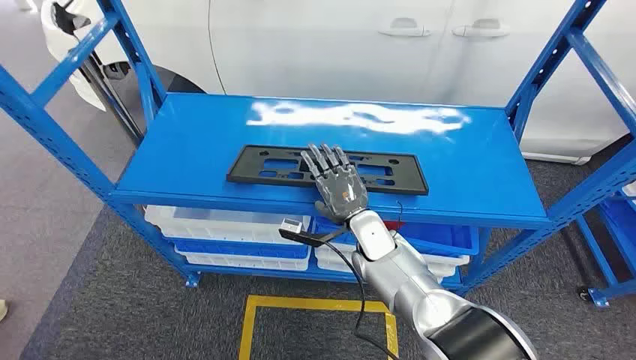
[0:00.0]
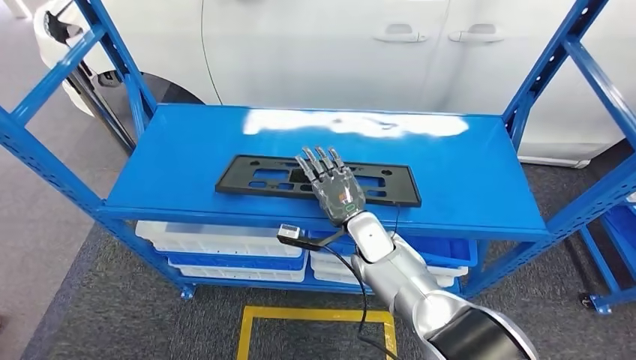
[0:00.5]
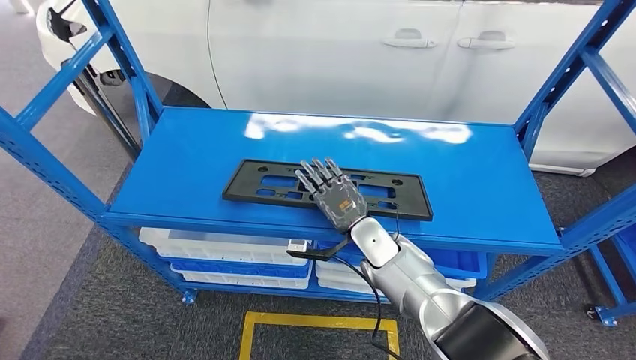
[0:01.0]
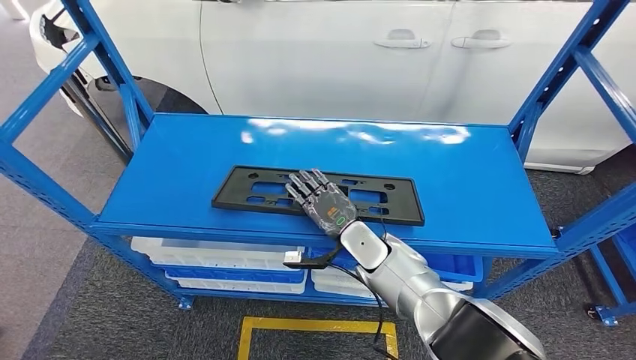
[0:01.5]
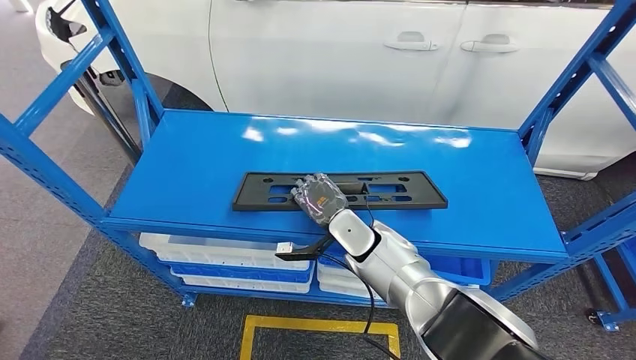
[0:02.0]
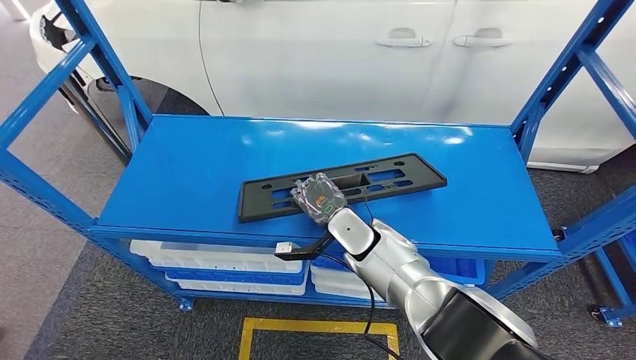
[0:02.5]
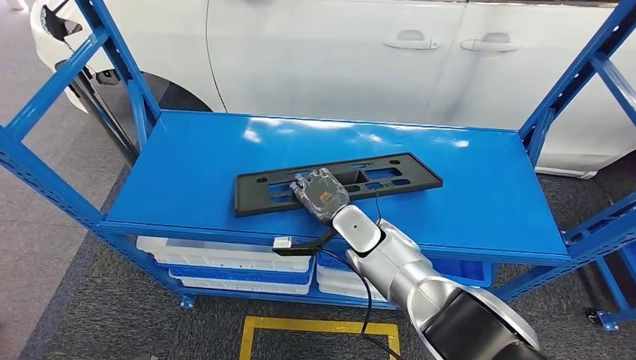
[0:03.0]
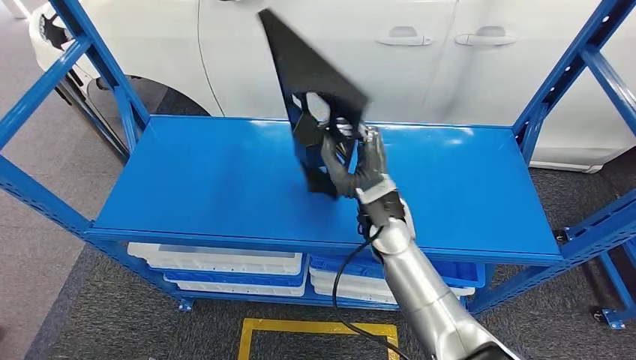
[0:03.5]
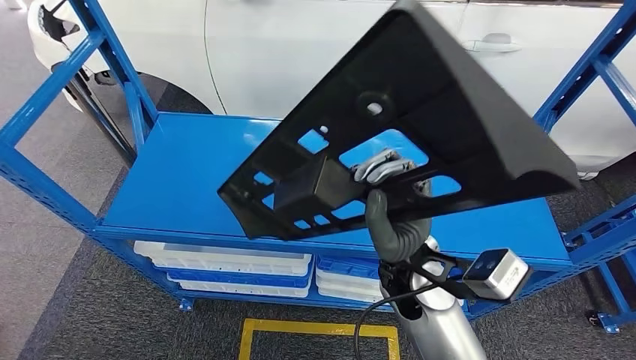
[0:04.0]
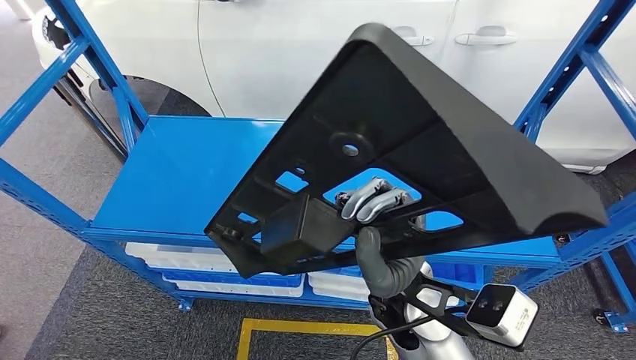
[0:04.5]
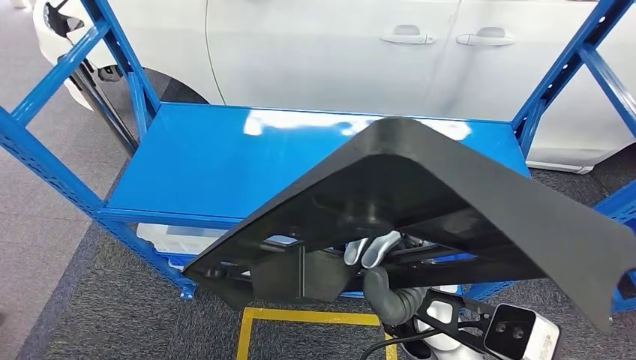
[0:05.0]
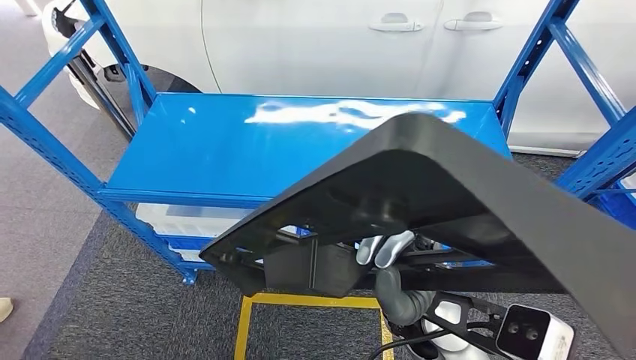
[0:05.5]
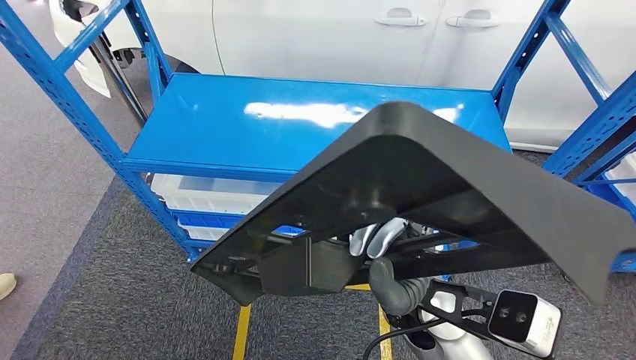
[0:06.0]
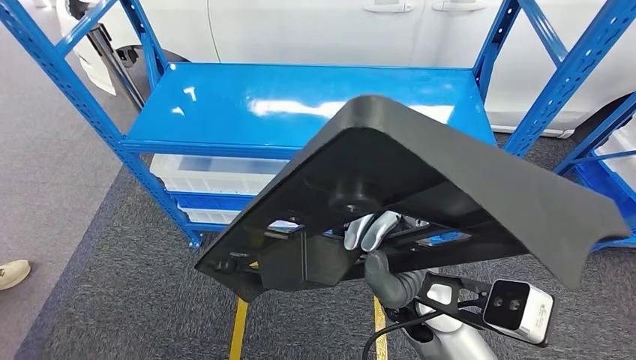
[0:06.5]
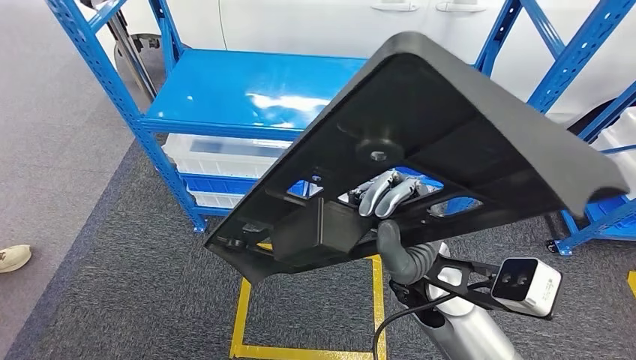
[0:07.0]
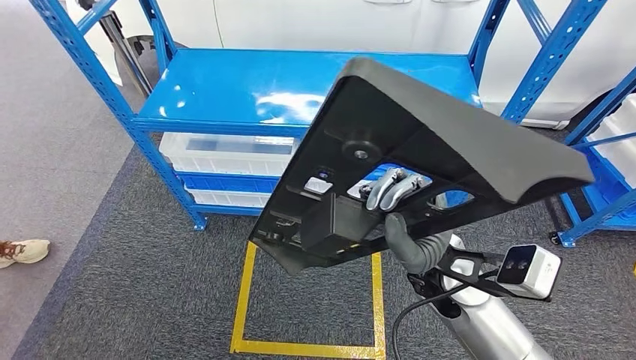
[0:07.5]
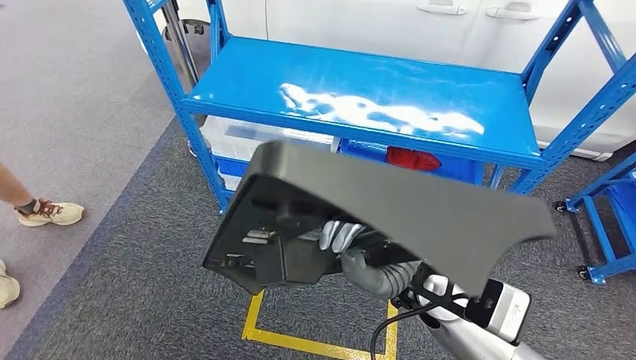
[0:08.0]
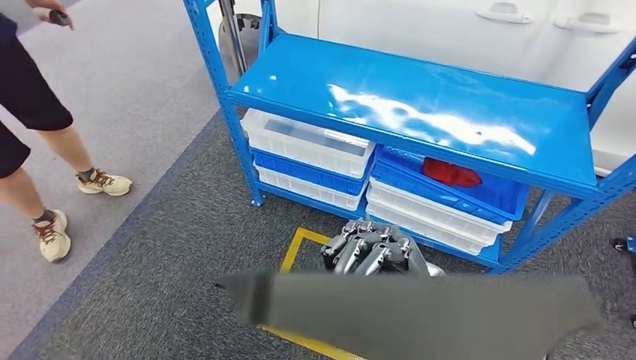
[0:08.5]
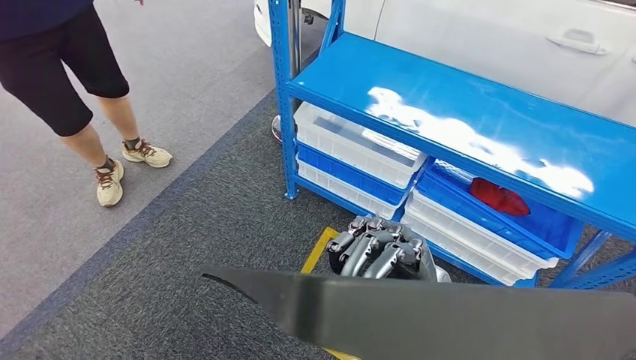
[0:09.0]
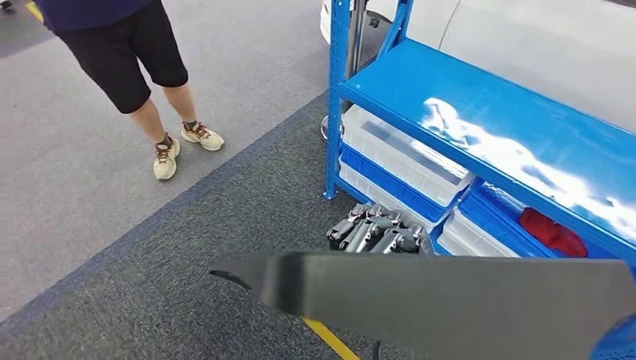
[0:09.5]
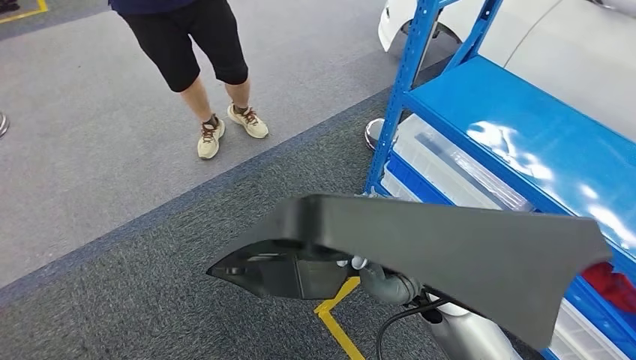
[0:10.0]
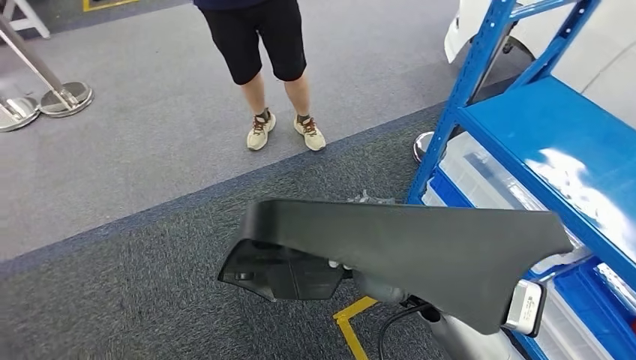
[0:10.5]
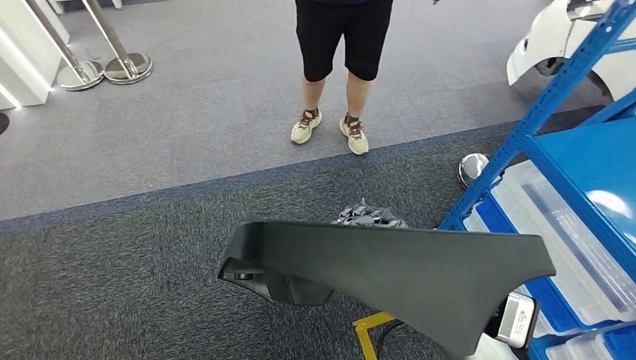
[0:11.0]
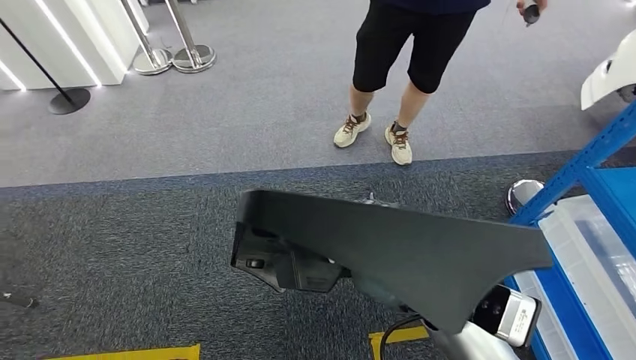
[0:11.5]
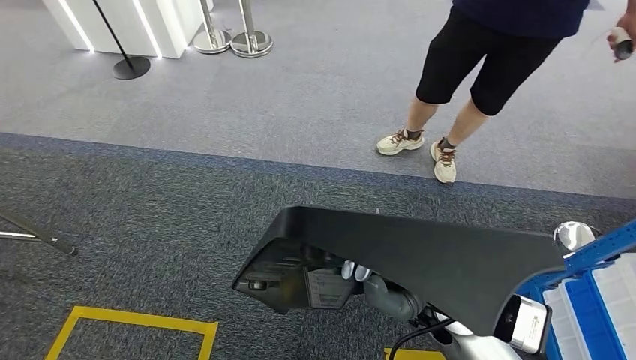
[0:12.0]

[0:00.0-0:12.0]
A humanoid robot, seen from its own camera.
Step, 0:00.0 to 0:04.5: Pick up the large material from the shelf.

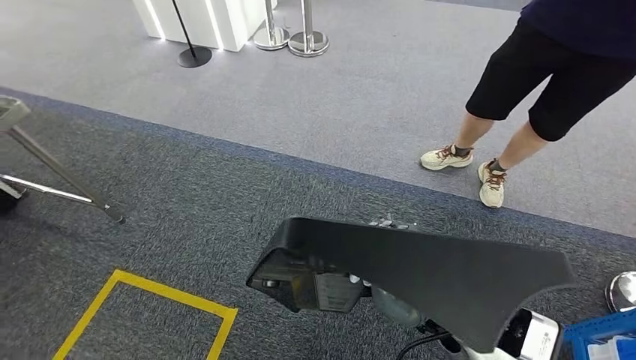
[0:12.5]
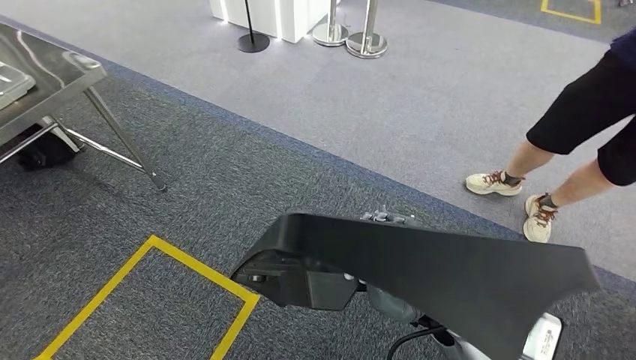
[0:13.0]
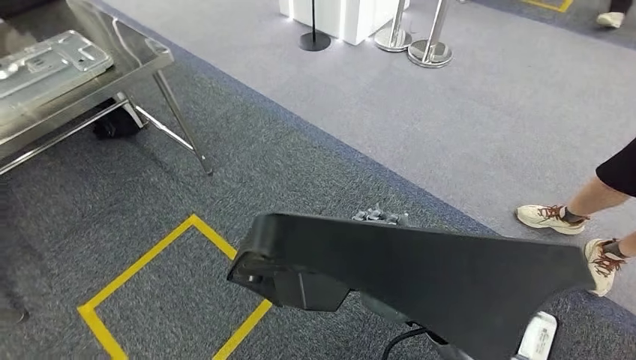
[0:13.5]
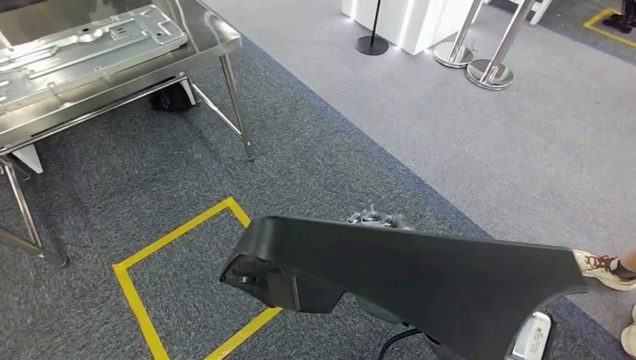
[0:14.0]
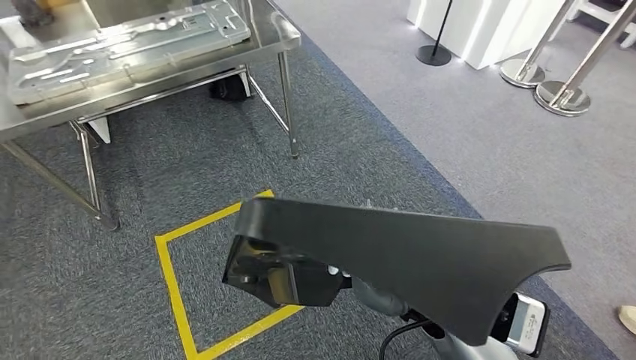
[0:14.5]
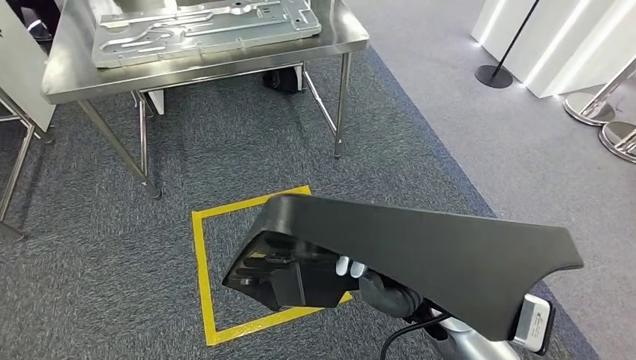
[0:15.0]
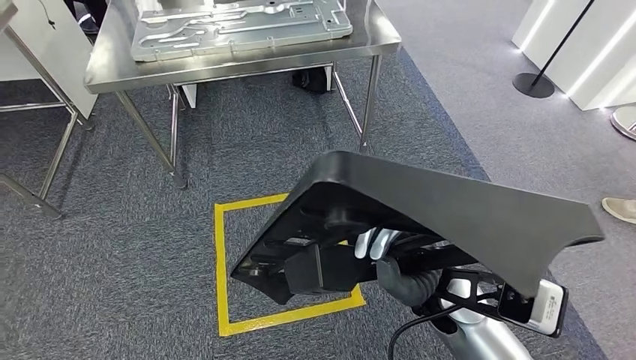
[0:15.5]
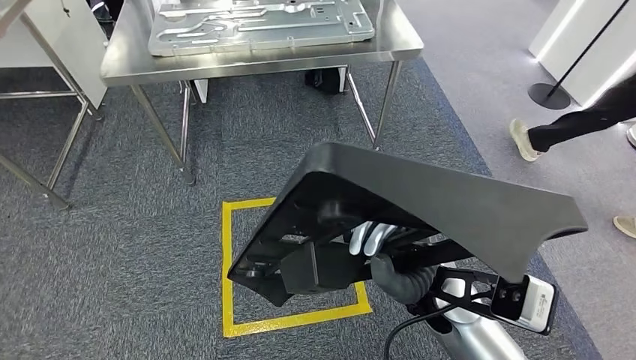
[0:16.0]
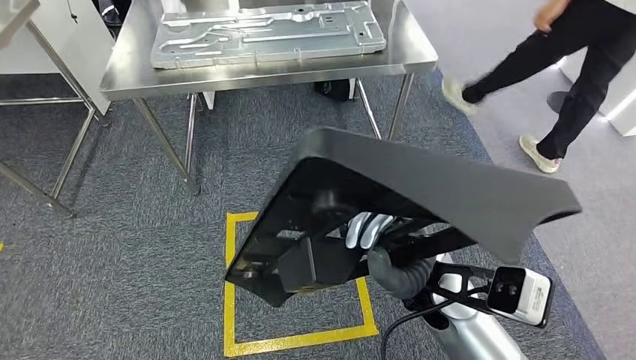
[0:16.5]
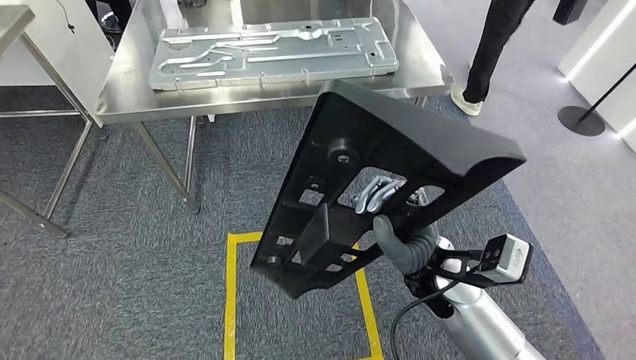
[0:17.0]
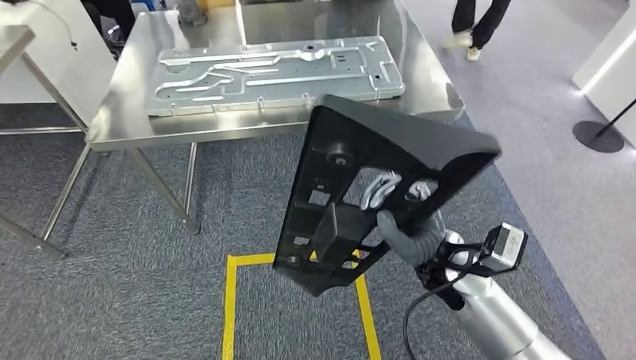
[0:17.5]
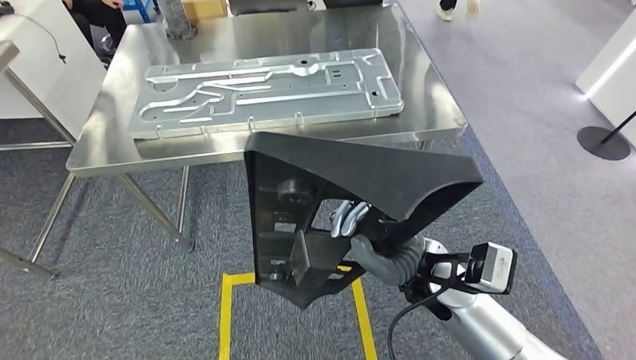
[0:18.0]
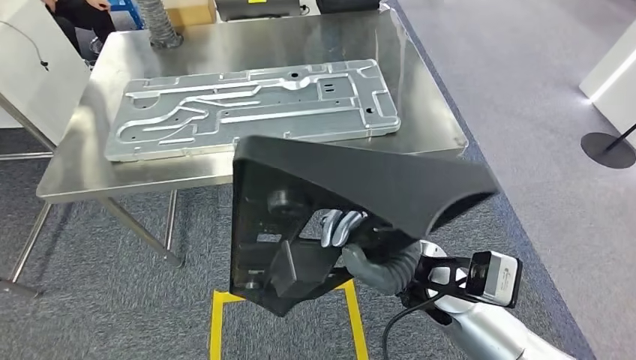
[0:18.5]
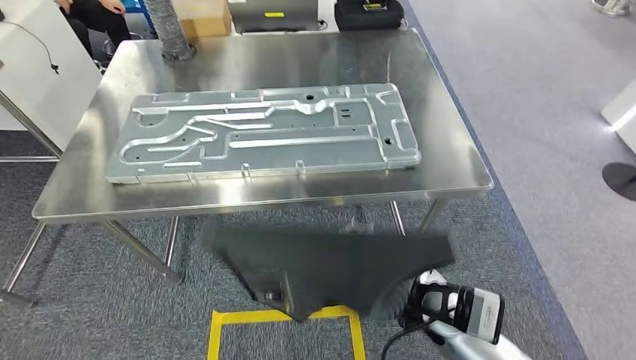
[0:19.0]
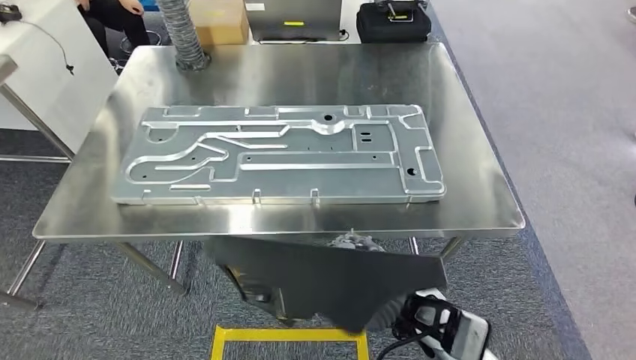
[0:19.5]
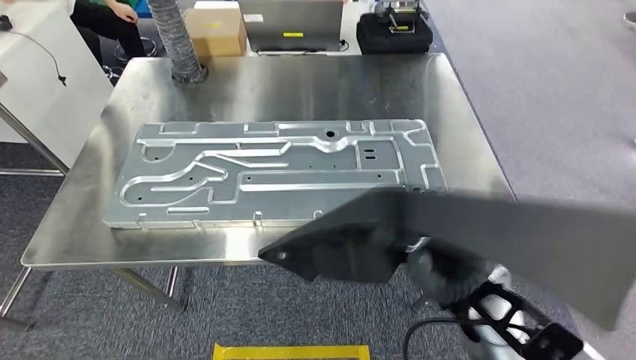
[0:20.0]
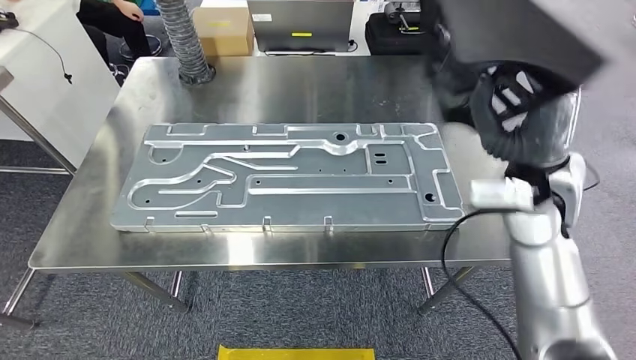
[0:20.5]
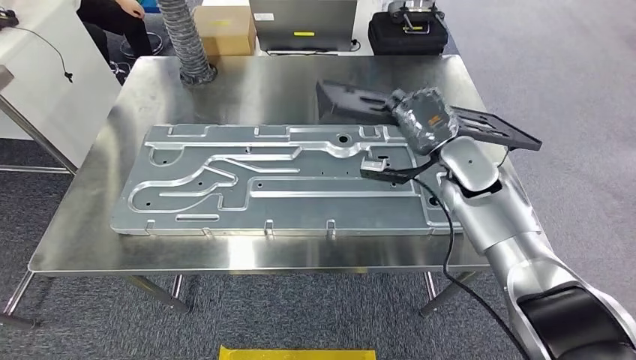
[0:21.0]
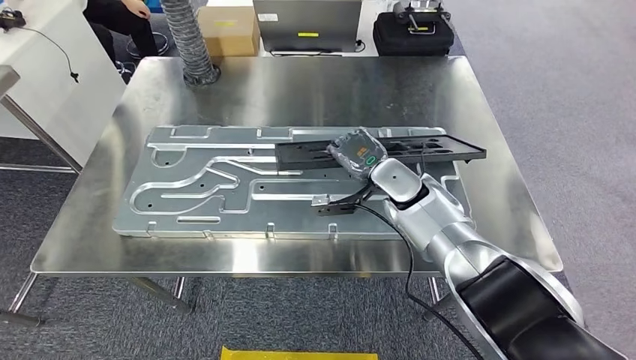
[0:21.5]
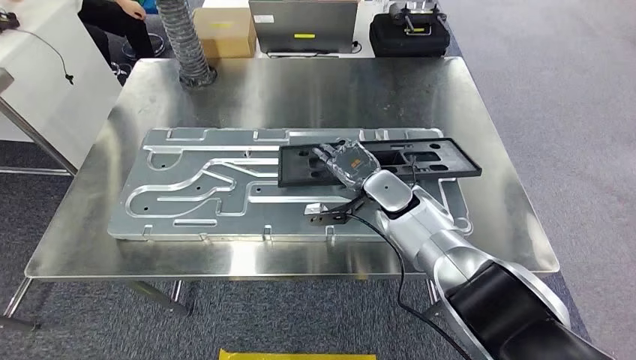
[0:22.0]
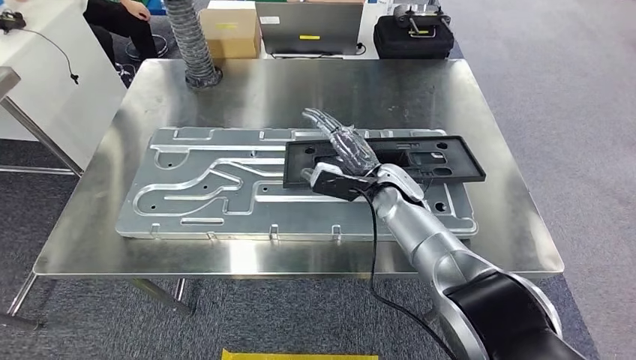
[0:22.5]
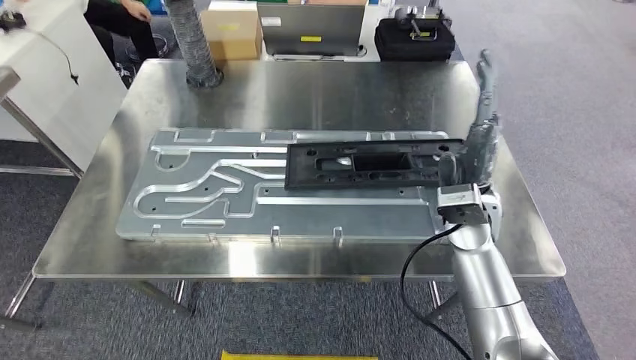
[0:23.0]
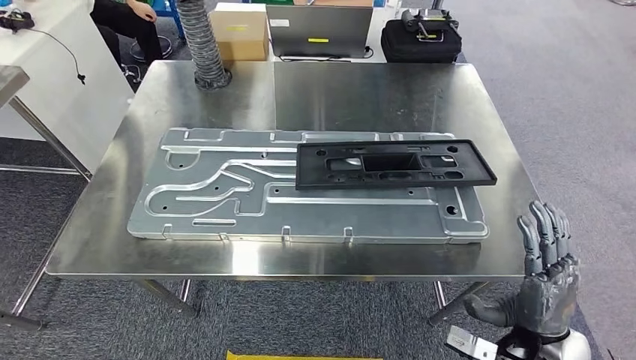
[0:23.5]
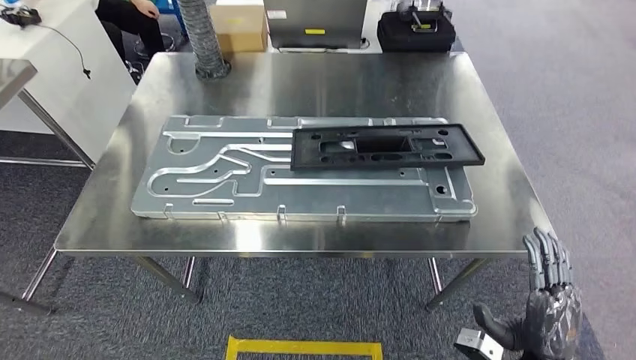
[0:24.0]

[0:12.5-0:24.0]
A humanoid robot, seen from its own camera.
Step, 0:12.5 to 0:19.0: Move the large material to the workbench.
Step, 0:20.0 to 0:23.5: Insert the large material into the corresponding slot on the workbench.
